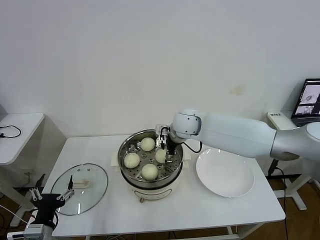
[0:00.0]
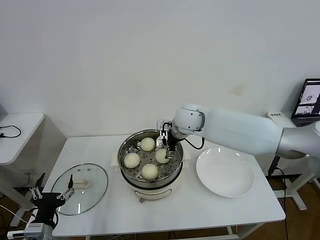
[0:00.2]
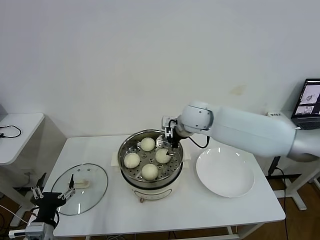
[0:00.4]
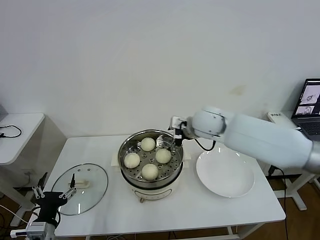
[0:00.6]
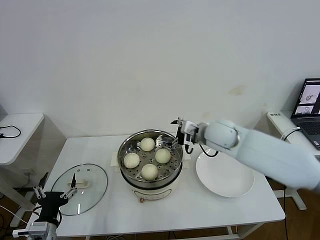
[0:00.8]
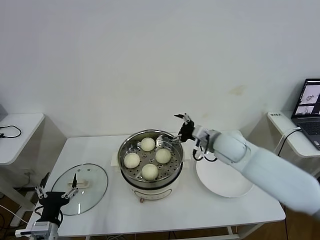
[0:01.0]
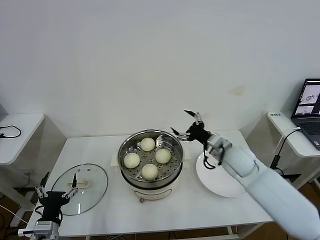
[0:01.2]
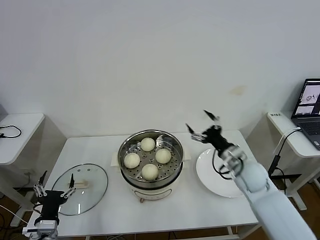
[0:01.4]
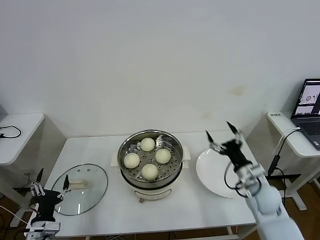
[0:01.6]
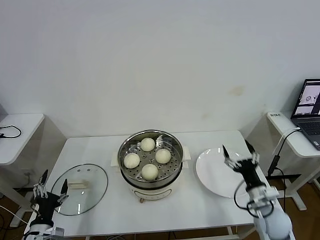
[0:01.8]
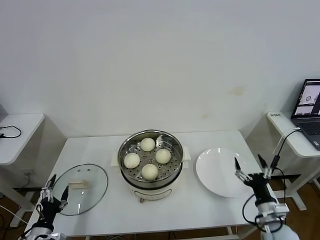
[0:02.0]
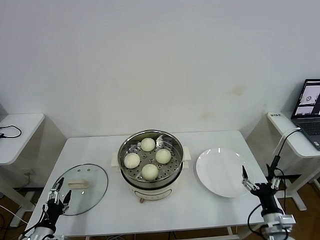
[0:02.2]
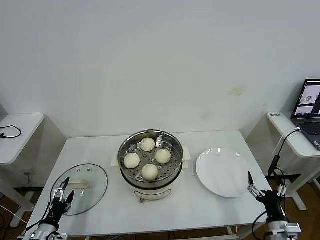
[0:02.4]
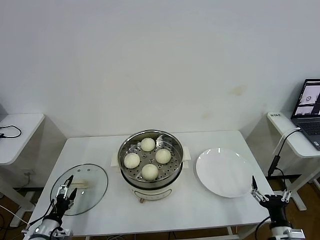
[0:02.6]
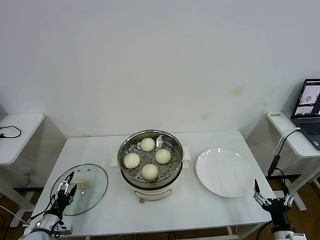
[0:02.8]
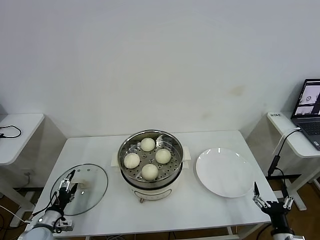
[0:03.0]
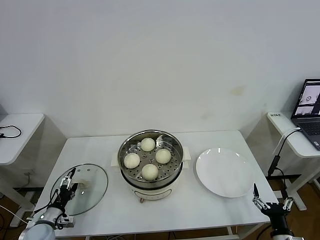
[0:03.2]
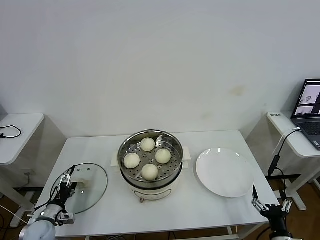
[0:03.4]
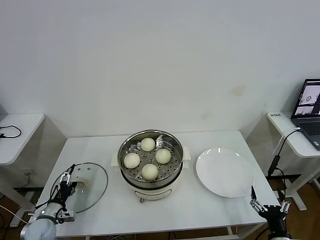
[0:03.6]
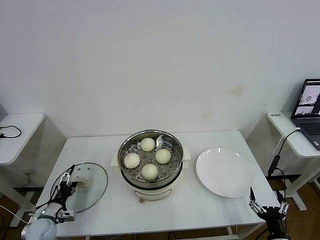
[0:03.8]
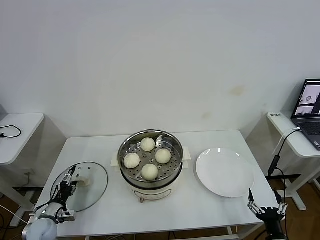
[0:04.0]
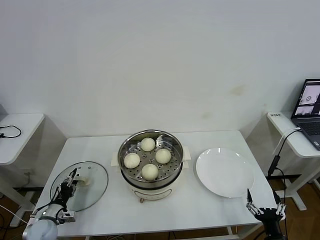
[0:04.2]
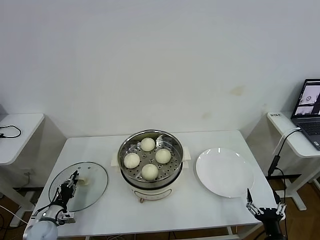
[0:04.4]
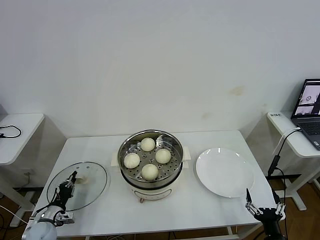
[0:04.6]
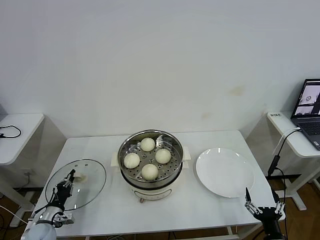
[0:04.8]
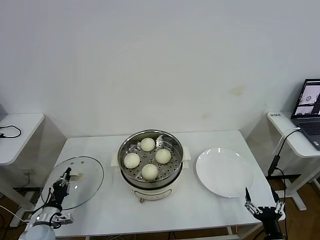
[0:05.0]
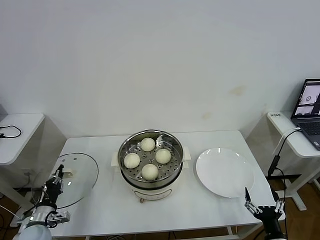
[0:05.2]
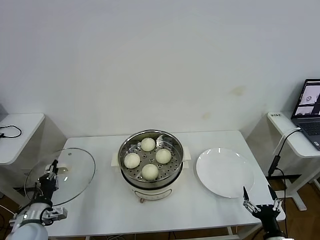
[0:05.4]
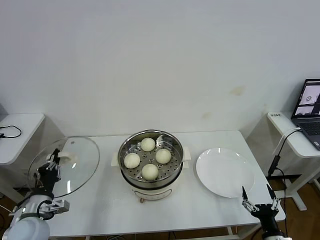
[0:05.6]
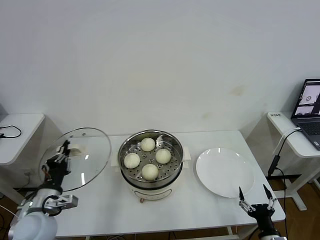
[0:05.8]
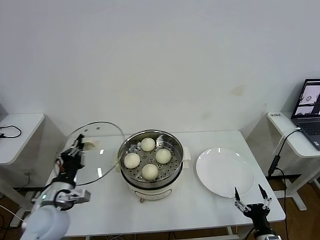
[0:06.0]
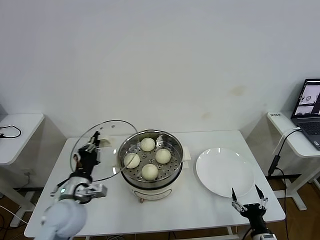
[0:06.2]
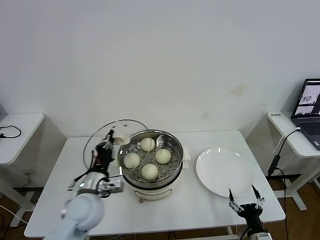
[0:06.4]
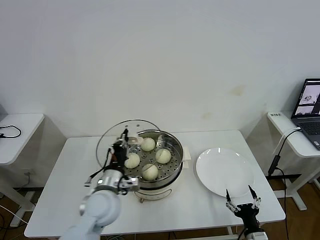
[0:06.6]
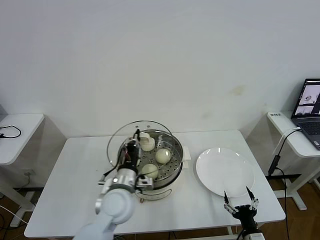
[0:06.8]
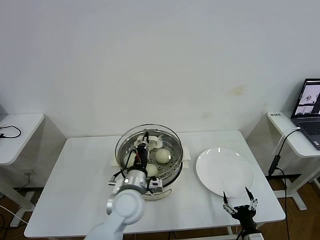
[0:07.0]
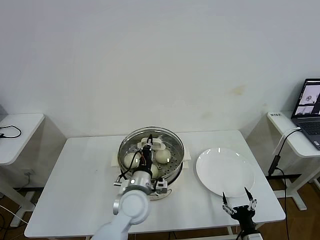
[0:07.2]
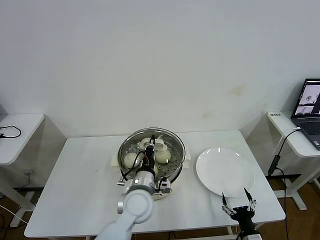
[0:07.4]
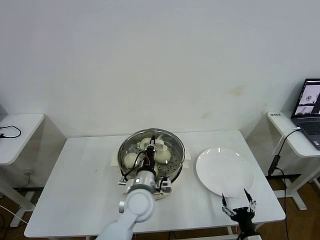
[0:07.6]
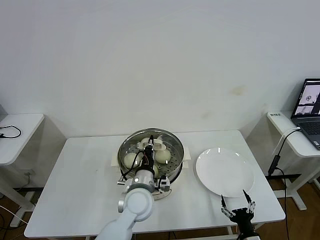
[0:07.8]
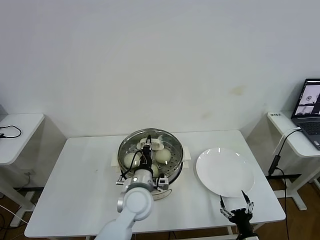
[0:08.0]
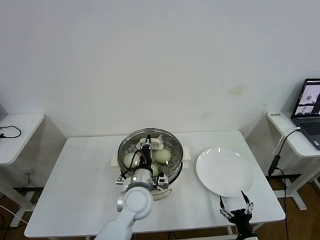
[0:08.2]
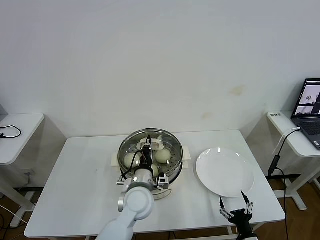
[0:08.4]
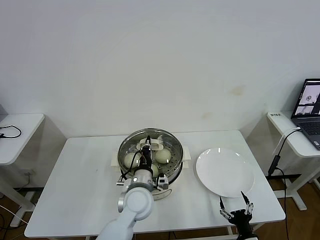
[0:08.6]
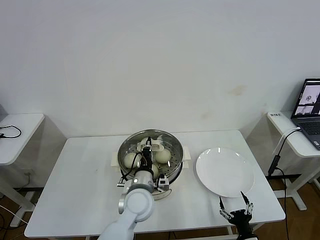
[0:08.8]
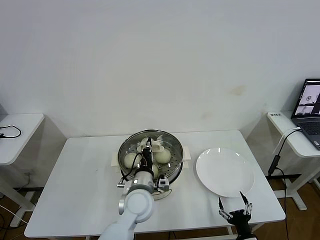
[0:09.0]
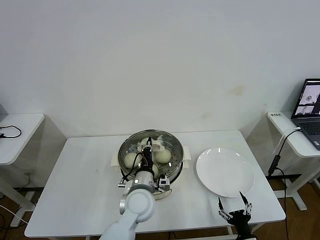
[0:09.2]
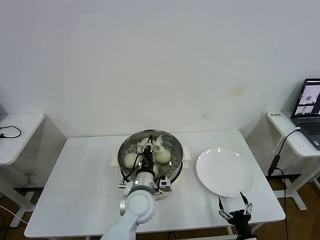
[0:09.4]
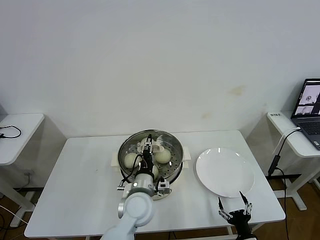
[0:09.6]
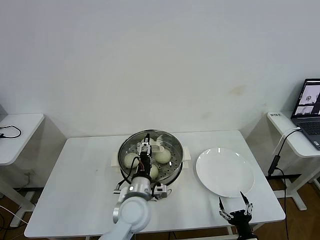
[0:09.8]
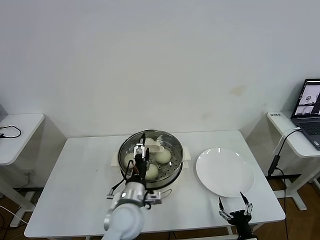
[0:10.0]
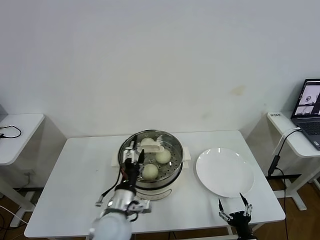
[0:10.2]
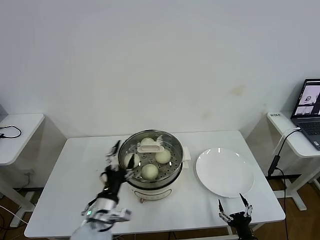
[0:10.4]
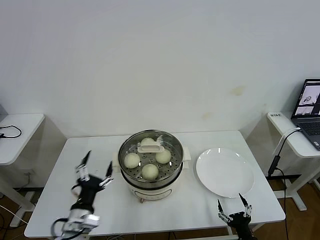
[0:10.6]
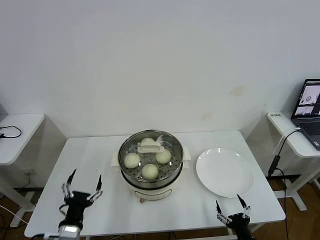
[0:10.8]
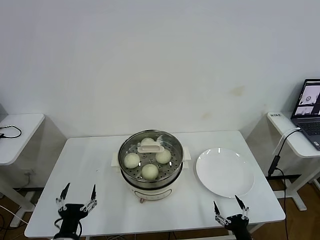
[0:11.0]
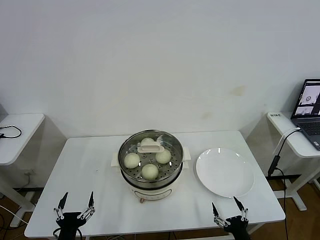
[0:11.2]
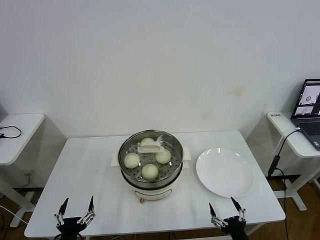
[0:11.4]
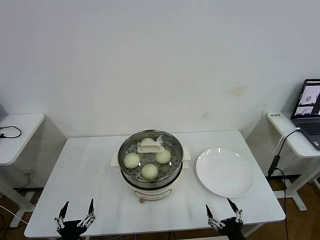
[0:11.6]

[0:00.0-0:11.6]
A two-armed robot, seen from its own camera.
Task of the whole recording: take steamed baozi put them in steamer then cover it.
Step, 0:00.2 to 0:04.6: Grasp the pot lid with left gripper.
Step, 0:04.8 to 0:09.8: Place the pot lid on the steamer with left gripper.
0:00.0 to 0:01.4: The right gripper moves to the right, backward and downward, some 25 cm.
0:01.4 to 0:02.8: The left gripper is displaced downward and to the left by about 10 cm. The right gripper moves backward, downward and to the right, roughly 30 cm.
0:02.8 to 0:04.4: The left gripper ends up about 5 cm from where it was, and closes up.
0:04.4 to 0:05.8: The left gripper moves upward and to the right, about 20 cm.
0:05.8 to 0:07.2: The left gripper goes roughly 25 cm to the right. The right gripper ends up some 5 cm from where it was.
0:07.2 to 0:08.8: There are only small adjustments of the grippers.
0:08.8 to 0:10.2: The left gripper travels backward and to the left by approximately 10 cm, and opens up.
0:10.2 to 0:11.6: The left gripper moves to the left, backward and downward, some 25 cm. The right gripper shifts approximately 5 cm upward.
